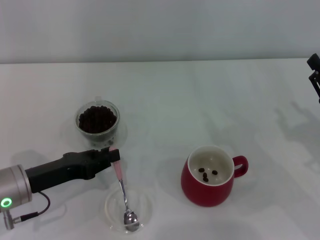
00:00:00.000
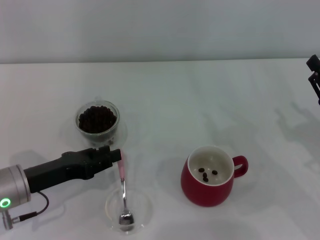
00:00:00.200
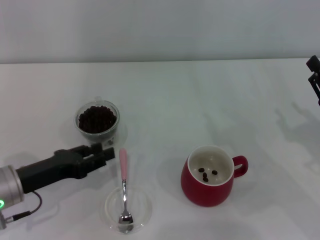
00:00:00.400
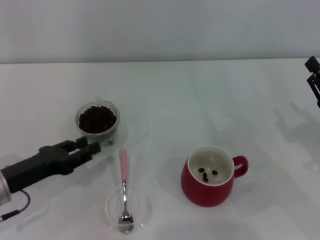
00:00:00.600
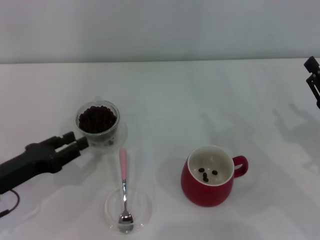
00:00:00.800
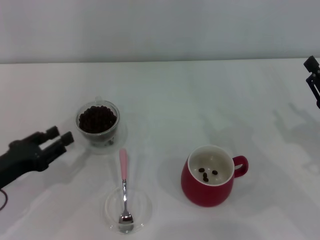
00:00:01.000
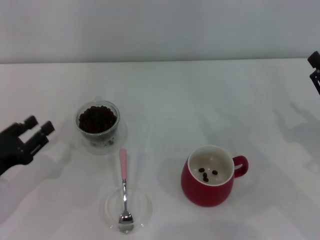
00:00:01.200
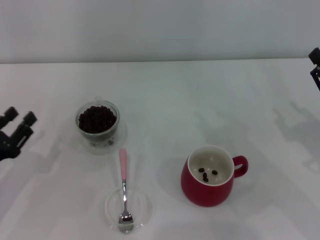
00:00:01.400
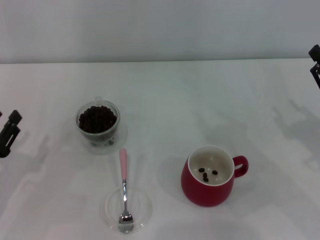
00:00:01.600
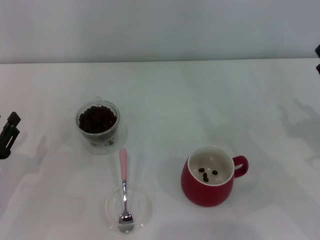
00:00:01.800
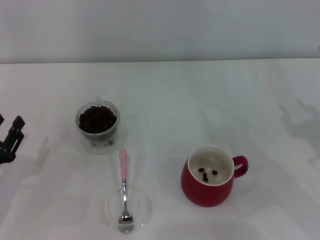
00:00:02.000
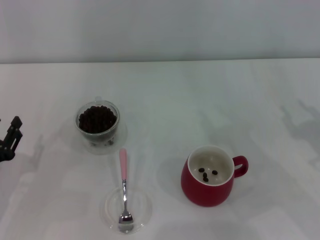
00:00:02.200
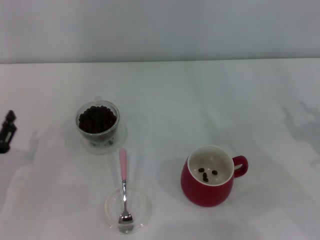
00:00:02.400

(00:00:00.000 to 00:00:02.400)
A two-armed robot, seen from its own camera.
Task of the whole recording: Use a pink spoon to take out the coffee beans from the glass and pour them into the red cup.
00:00:00.000 - 00:00:01.200: The left gripper shifts roughly 5 cm to the left, and opens.

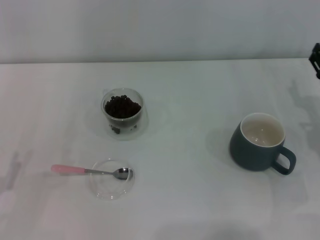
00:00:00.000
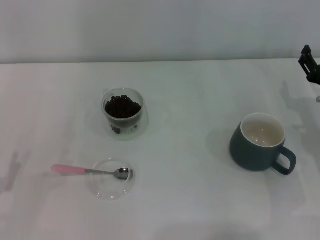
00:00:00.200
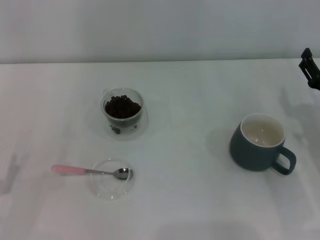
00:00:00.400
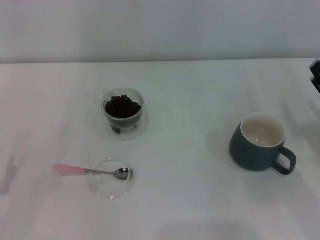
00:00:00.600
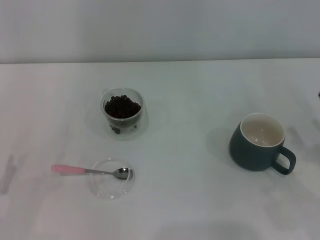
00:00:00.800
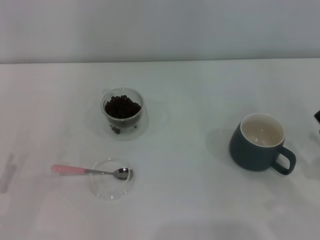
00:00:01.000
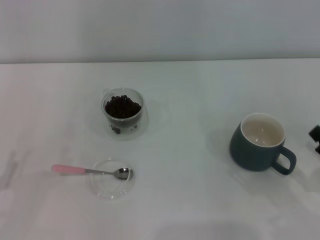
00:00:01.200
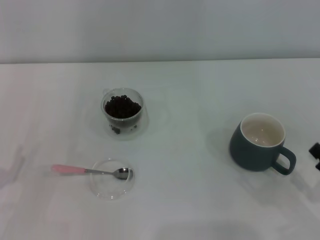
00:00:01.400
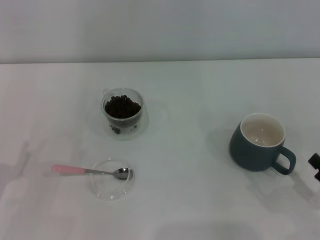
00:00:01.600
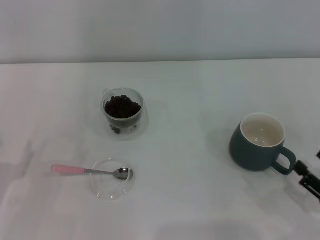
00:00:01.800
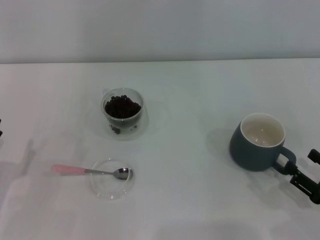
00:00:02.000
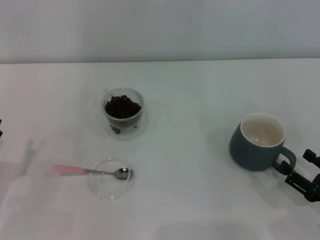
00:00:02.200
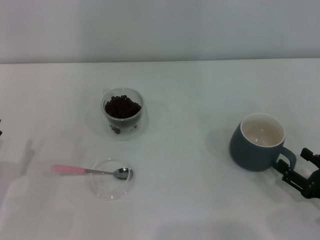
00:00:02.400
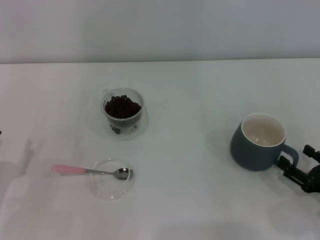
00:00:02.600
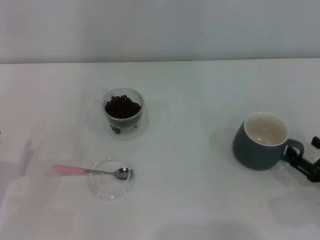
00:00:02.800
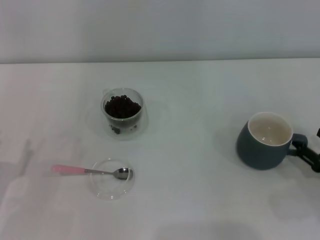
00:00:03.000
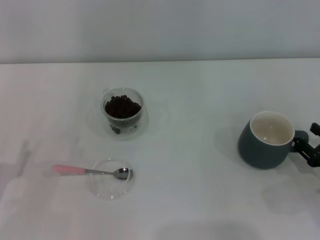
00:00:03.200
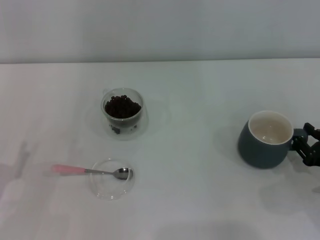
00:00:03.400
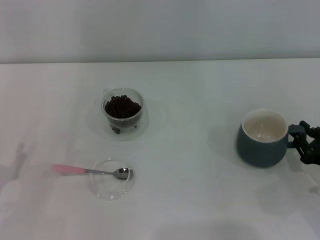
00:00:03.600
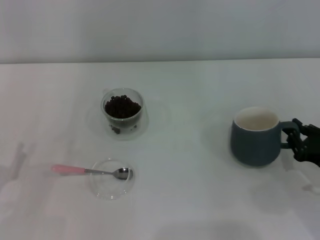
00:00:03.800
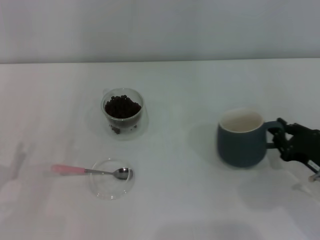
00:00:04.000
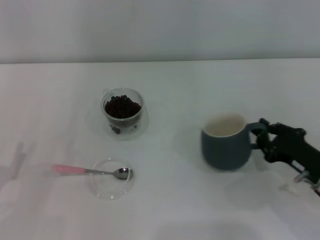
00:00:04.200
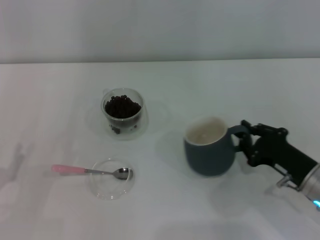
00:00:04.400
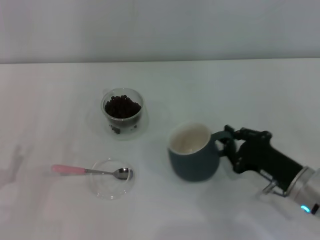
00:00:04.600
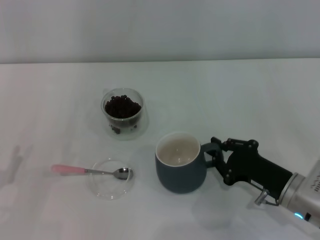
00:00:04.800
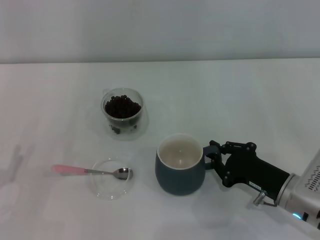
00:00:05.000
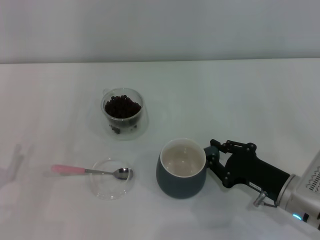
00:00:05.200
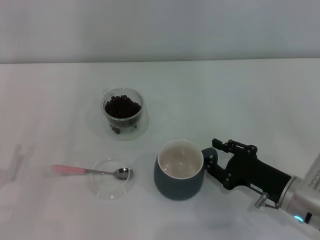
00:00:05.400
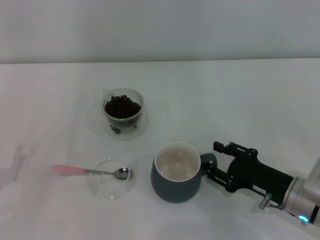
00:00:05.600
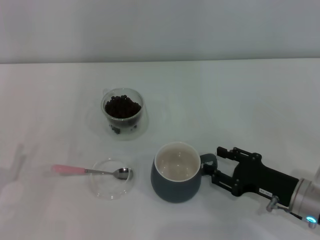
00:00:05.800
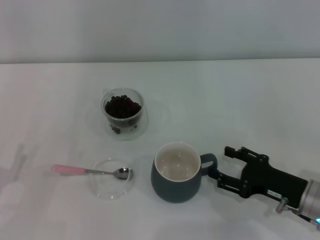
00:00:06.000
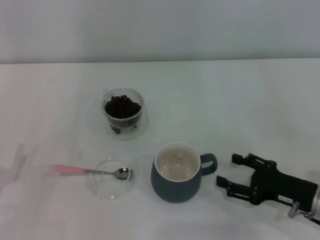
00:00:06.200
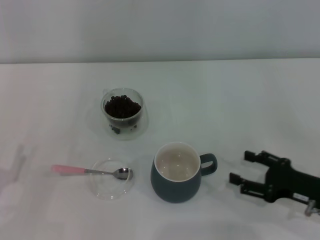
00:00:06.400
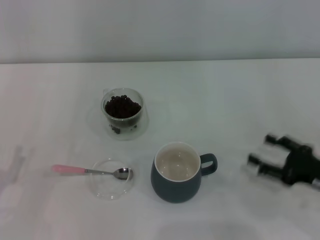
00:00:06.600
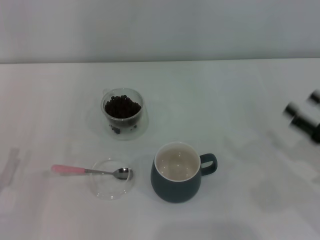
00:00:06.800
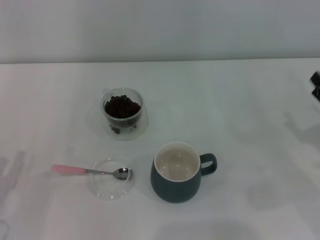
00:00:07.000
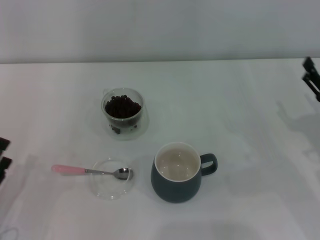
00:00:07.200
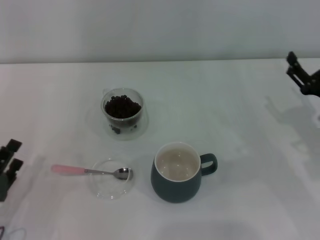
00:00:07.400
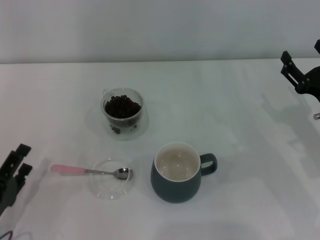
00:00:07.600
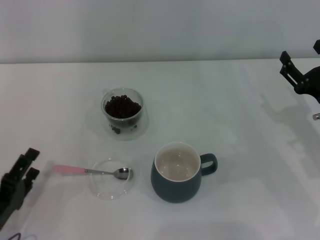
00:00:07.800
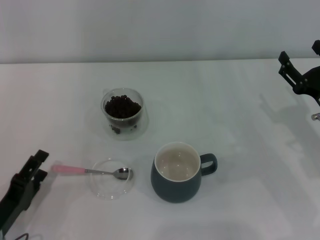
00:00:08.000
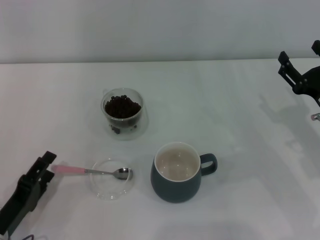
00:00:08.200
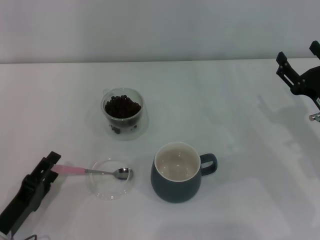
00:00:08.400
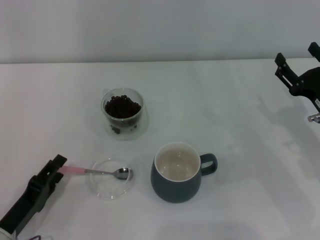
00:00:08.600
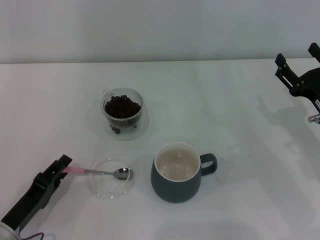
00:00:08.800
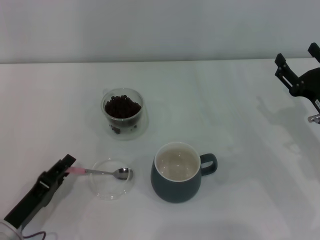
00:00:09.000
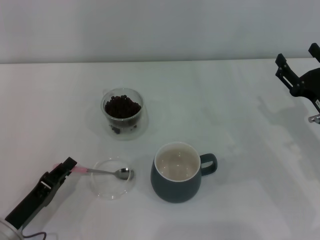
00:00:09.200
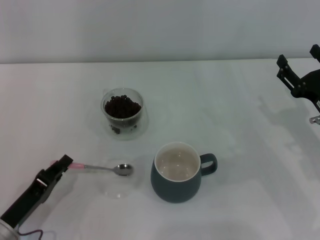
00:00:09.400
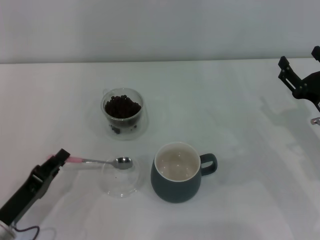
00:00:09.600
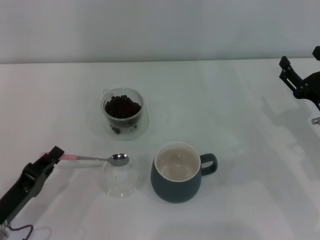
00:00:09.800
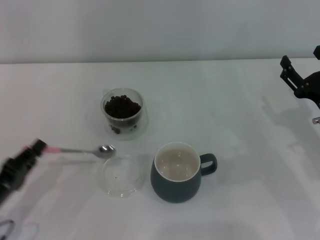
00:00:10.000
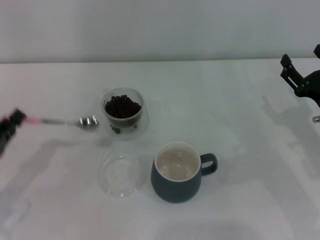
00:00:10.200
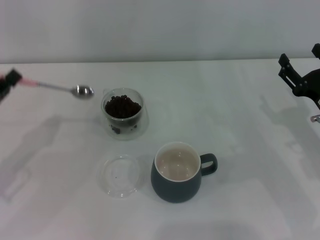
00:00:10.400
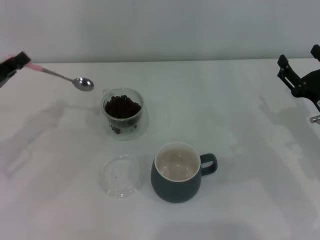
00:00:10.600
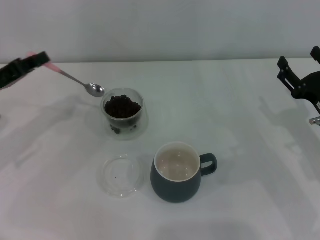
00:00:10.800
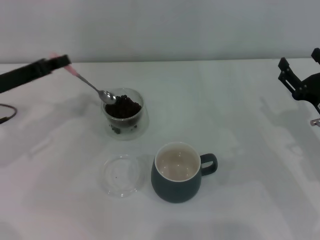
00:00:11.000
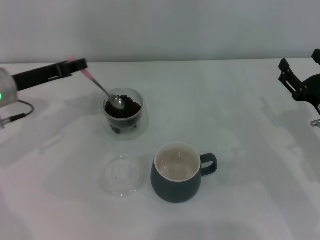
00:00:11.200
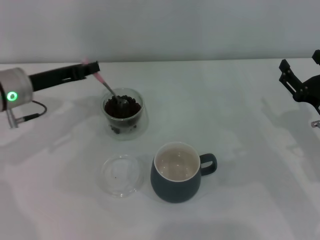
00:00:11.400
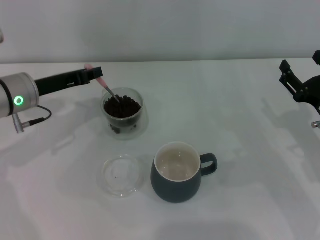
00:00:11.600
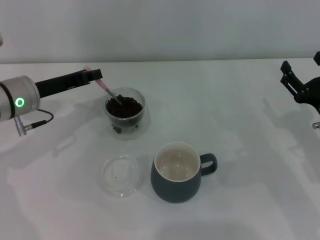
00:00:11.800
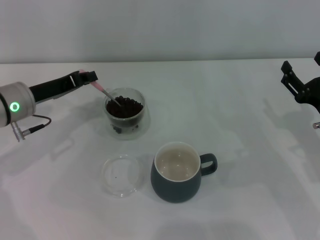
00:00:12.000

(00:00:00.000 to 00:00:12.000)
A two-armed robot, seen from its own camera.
Task of the whole recording: Use a pink spoon to take out the coffee beans from the glass and pour them into the gray cup.
Step, 00:00:00.000 - 00:00:06.400: Move the cup to the center of view with the left gripper.
Step, 00:00:06.600 - 00:00:09.800: Pick up the spoon with the right gripper.
00:00:00.000 - 00:00:01.600: The right gripper moves backward, roughly 20 cm.
00:00:01.600 - 00:00:03.000: The right gripper goes roughly 5 cm forward.
00:00:03.000 - 00:00:04.400: The right gripper is displaced to the left by some 10 cm, and closes.
00:00:04.400 - 00:00:06.000: The right gripper opens.
00:00:06.000 - 00:00:07.600: The right gripper heads forward and upward, covering roughly 10 cm.
00:00:07.600 - 00:00:09.000: The left gripper closes its fingers.
00:00:09.000 - 00:00:10.400: The left gripper moves upward, forward and to the left, about 15 cm, and closes up.
00:00:10.400 - 00:00:12.000: The left gripper heads forward and to the right, covering some 15 cm.

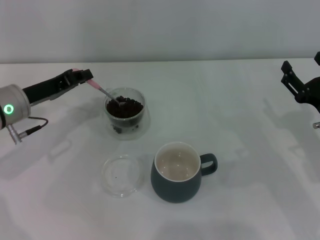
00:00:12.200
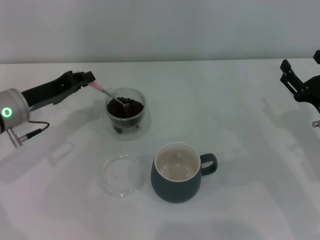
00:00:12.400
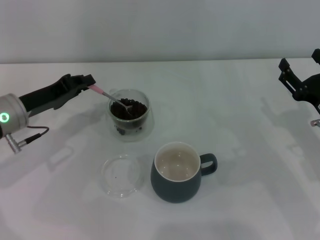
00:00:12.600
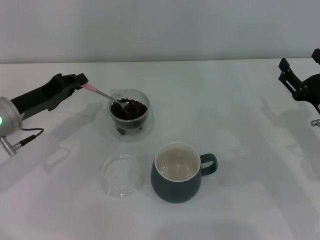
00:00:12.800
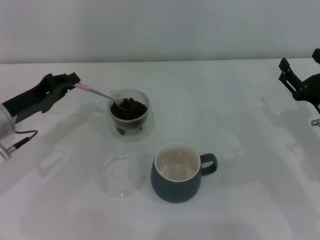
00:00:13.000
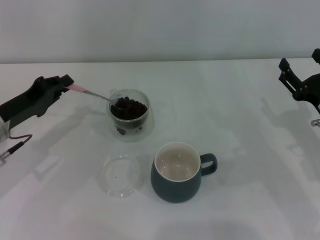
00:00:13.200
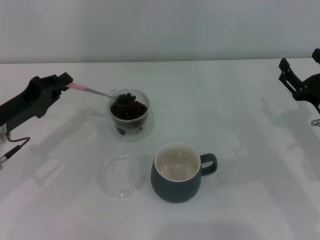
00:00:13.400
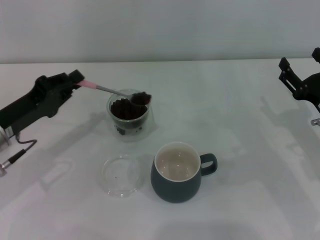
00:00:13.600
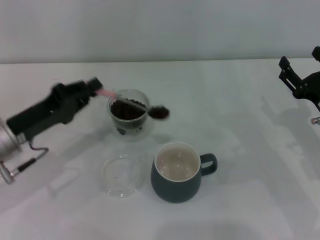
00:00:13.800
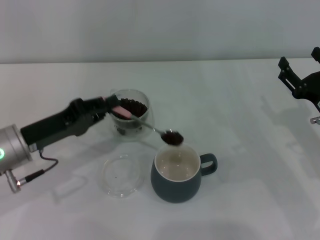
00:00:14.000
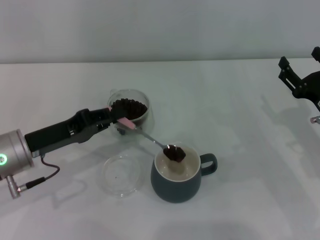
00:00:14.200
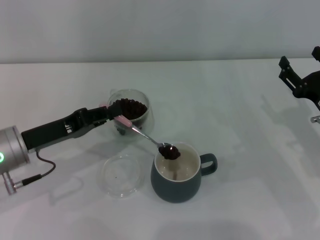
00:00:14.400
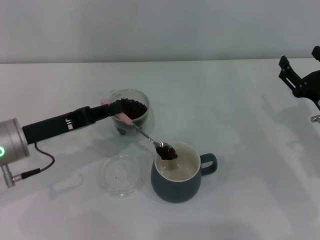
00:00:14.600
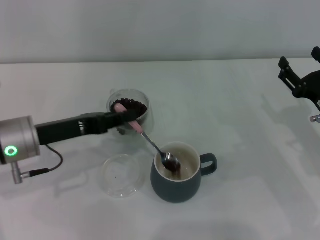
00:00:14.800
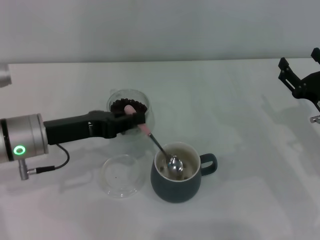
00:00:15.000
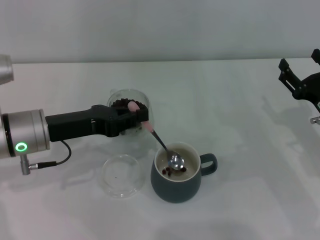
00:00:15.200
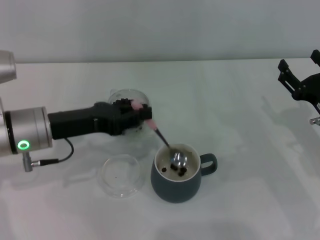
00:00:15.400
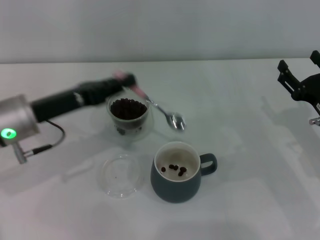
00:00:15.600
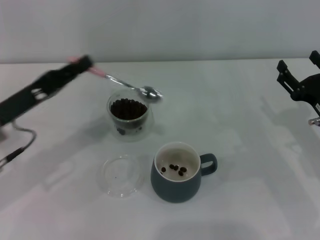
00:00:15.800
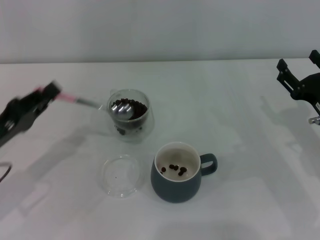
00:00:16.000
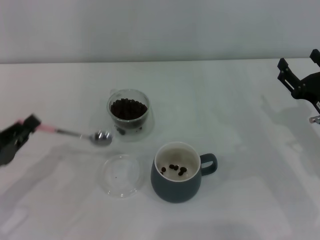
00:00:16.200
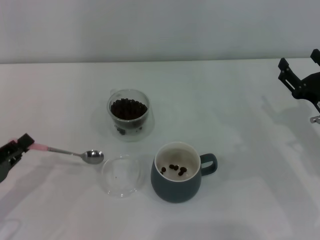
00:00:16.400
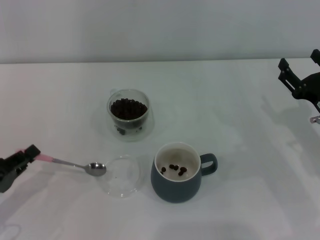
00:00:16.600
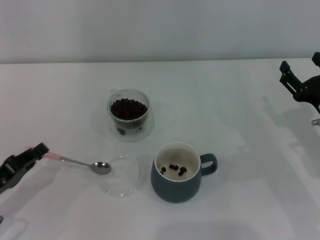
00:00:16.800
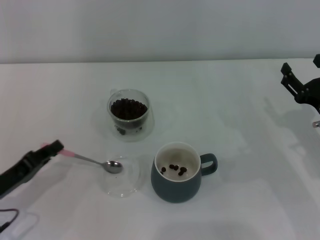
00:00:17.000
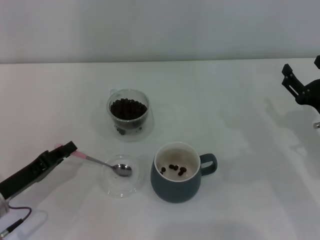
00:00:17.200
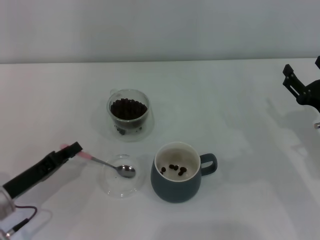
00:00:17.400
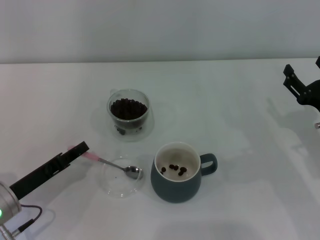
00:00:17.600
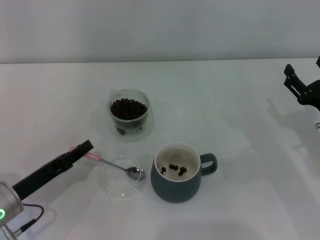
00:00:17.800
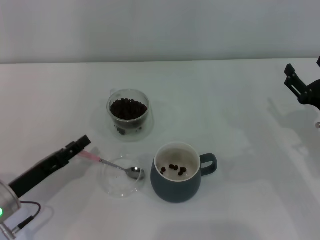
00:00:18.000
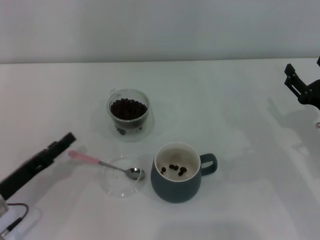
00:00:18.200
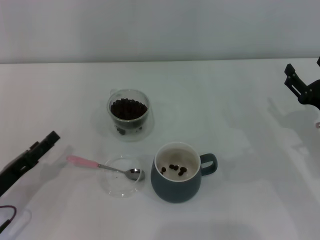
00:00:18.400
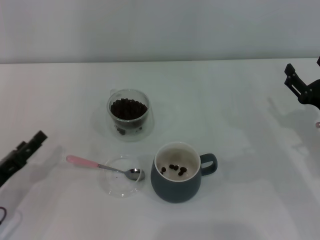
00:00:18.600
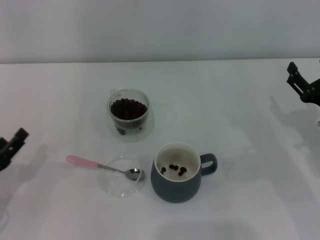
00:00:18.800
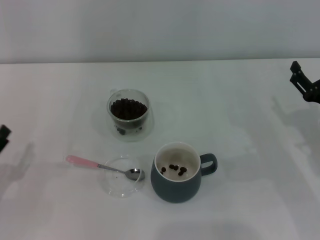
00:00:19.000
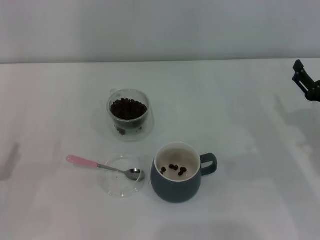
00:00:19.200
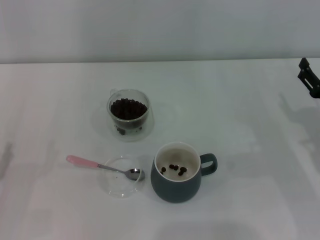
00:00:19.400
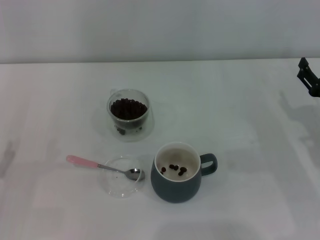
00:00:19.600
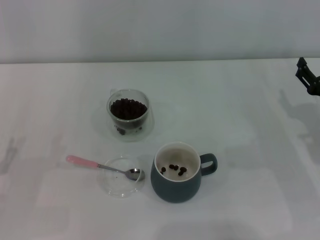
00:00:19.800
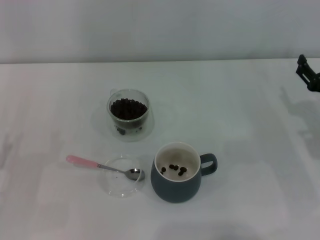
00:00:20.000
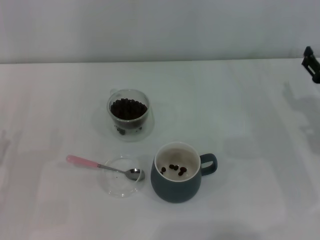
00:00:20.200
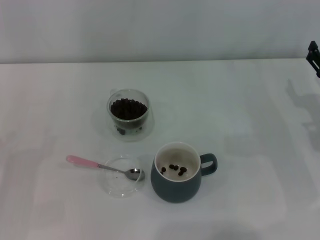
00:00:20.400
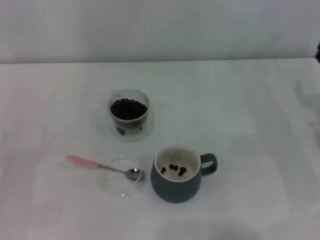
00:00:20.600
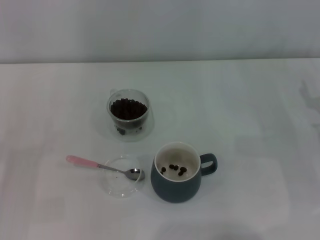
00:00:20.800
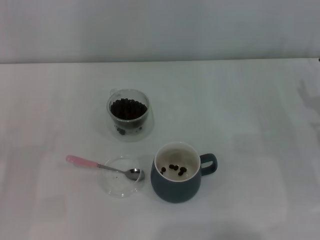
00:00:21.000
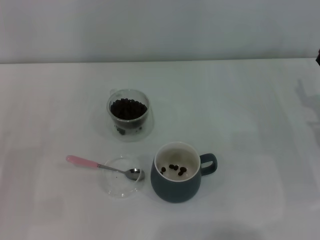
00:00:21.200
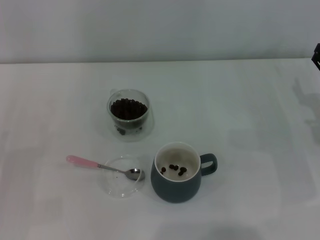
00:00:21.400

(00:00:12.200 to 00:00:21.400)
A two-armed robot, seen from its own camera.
Task of the whole recording: Use a pink spoon to take out the coffee beans from the glass and pour them into the gray cup.
00:00:12.200 - 00:00:13.800: The left gripper travels backward by some 5 cm.
00:00:13.800 - 00:00:15.200: The left gripper moves roughly 5 cm.
00:00:15.200 - 00:00:16.800: The left gripper moves to the left, backward and downward, roughly 15 cm.
00:00:16.800 - 00:00:18.400: The left gripper opens up.
